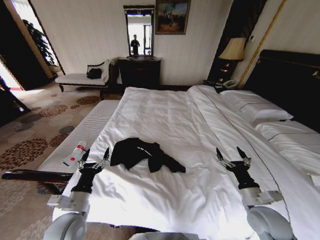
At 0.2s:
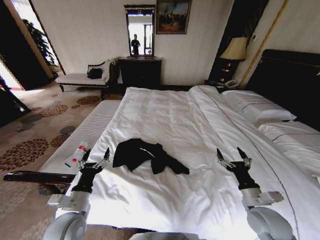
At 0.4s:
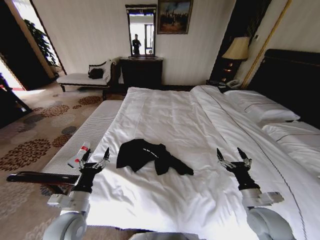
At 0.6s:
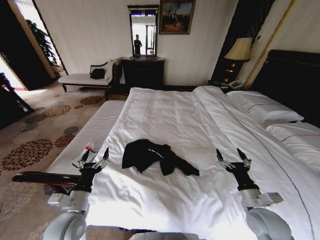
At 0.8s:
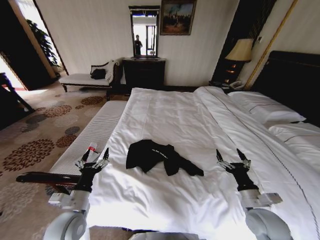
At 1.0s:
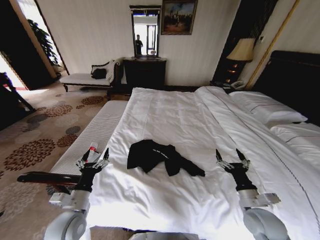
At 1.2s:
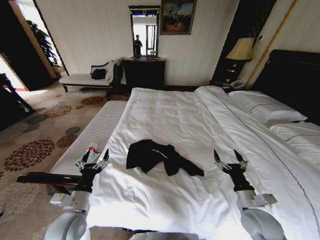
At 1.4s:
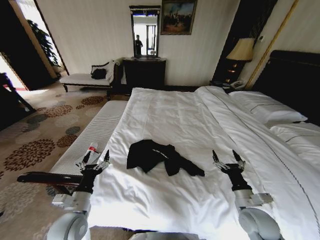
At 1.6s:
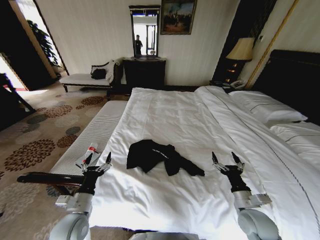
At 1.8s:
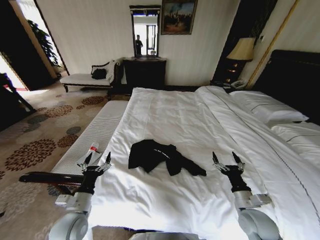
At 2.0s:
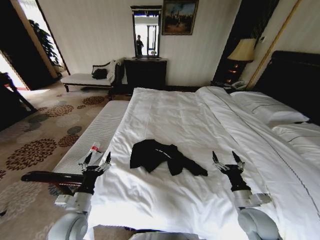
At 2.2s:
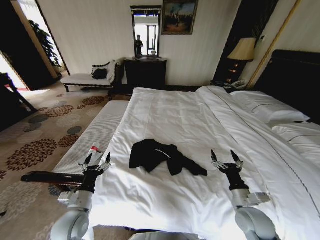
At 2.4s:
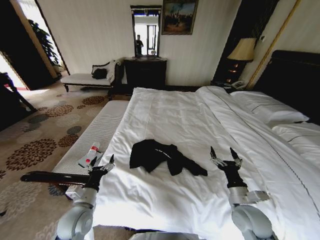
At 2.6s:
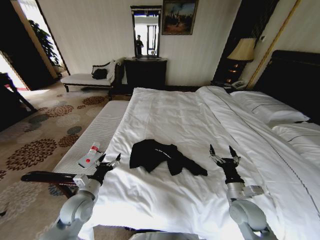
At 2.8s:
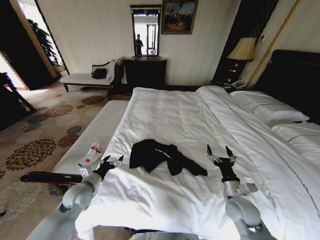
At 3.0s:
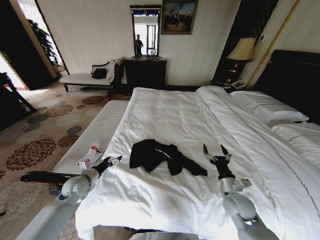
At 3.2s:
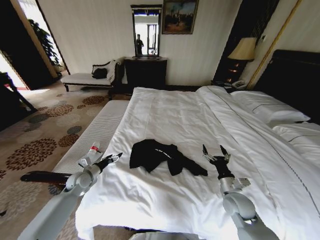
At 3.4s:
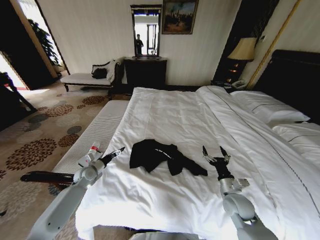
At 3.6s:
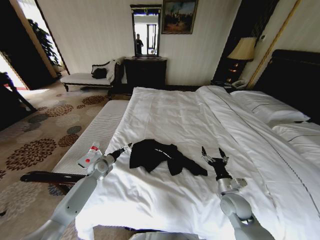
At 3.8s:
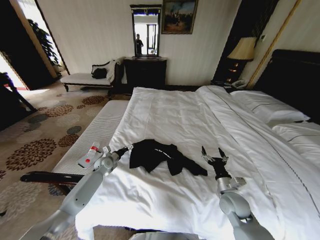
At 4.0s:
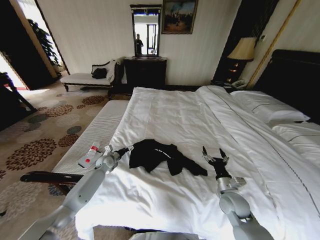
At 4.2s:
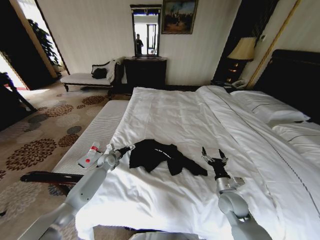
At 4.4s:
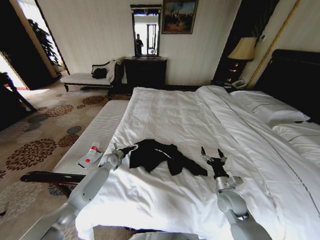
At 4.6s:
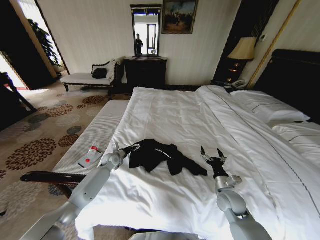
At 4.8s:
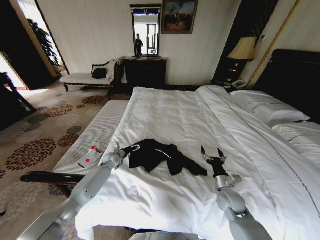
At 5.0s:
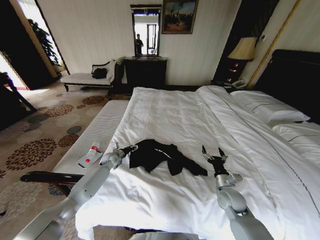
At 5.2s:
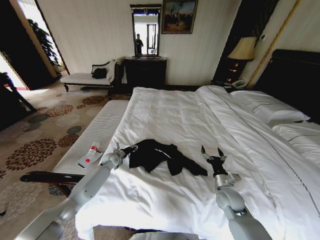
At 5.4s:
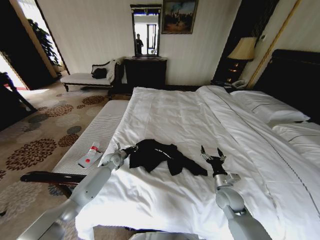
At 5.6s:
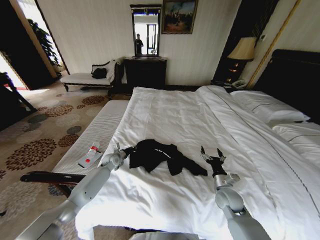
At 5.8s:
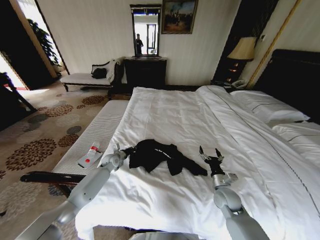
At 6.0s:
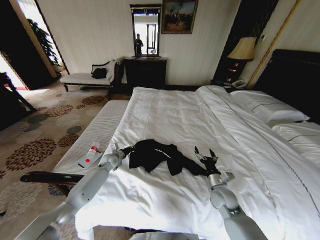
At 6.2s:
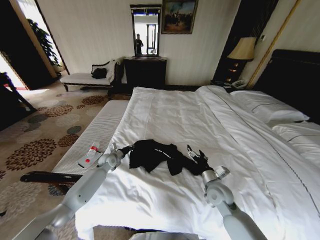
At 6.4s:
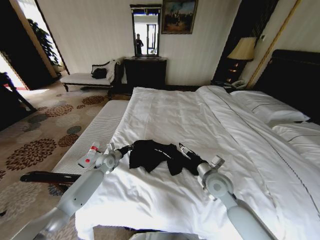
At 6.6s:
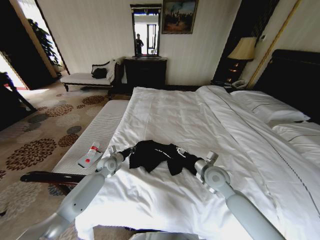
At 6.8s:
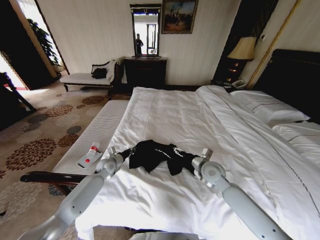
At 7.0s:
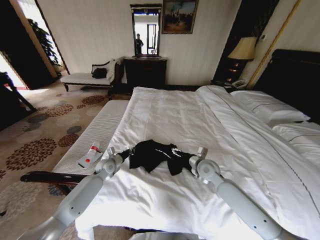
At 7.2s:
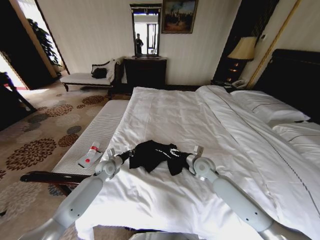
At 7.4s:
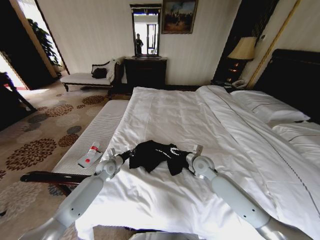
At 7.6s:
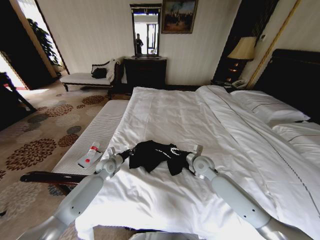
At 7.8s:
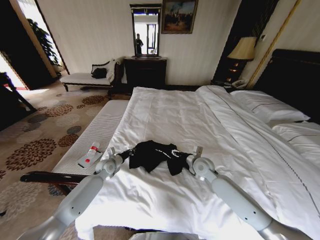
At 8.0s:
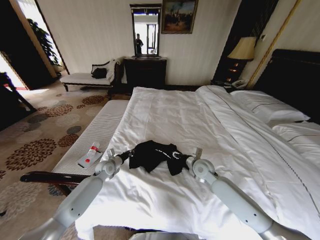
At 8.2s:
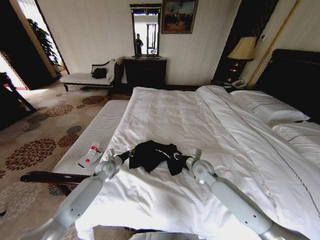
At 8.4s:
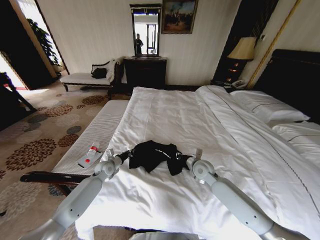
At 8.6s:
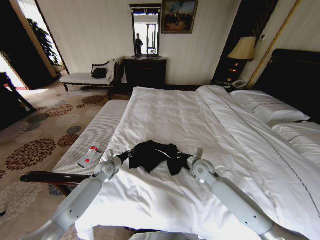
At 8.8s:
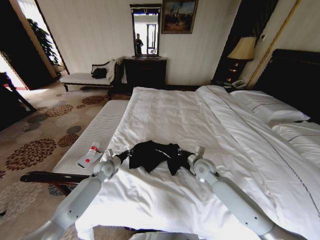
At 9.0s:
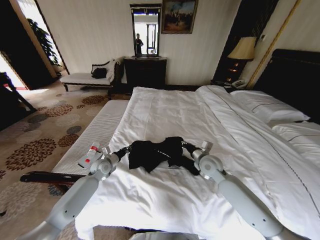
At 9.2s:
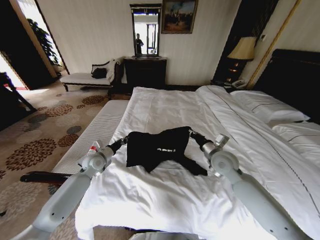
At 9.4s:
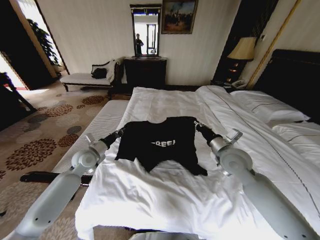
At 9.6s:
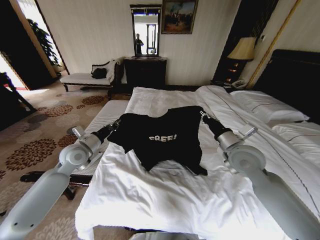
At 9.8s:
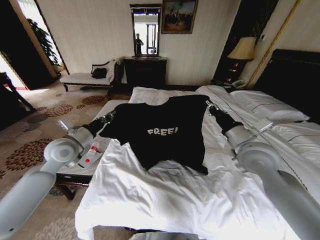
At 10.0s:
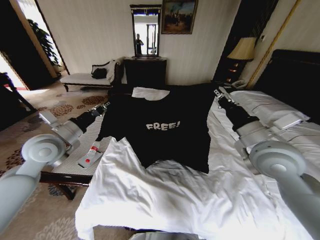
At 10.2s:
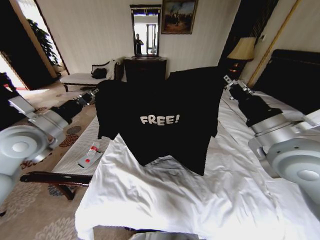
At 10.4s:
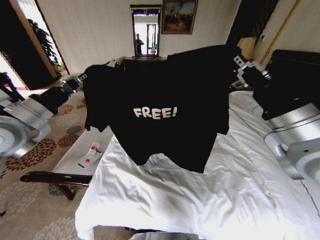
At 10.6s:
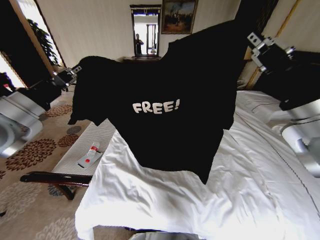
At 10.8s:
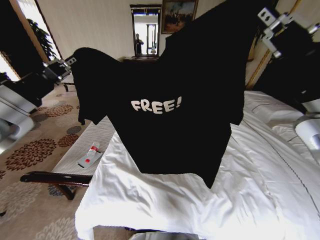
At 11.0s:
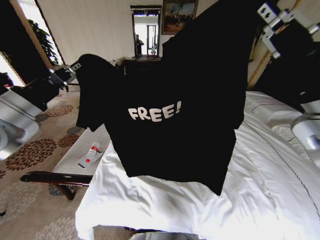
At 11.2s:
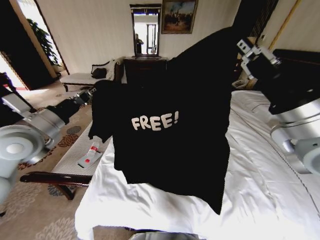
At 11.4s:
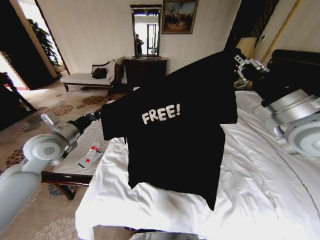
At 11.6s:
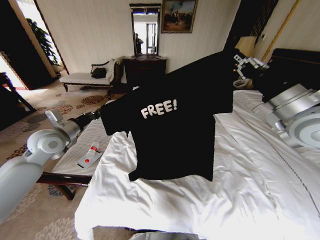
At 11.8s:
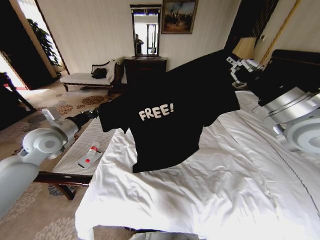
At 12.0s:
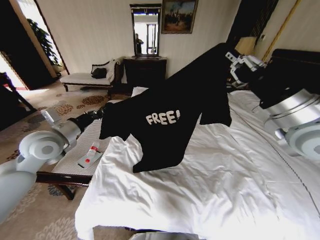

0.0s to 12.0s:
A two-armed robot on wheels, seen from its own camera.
Task of the whole recording: Fold the clothes on the bed.
1.6s to 3.0s: The right gripper goes roughly 5 cm forward. The left gripper travels forward and to the left by some 15 cm.
3.0s to 4.4s: The left gripper heads forward and to the right, covering approximately 20 cm.
4.4s to 6.0s: The left gripper closes.
6.0s to 7.6s: The right gripper is displaced forward, upward and to the left by about 15 cm.
7.6s to 9.0s: The right gripper closes up.
9.0s to 10.4s: The right gripper goes some 30 cm upward and backward. The left gripper moves upward, roughly 35 cm.
10.4s to 12.0s: The right gripper travels forward by roughly 5 cm. The left gripper shifts approximately 10 cm downward and forward.

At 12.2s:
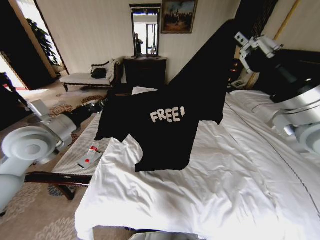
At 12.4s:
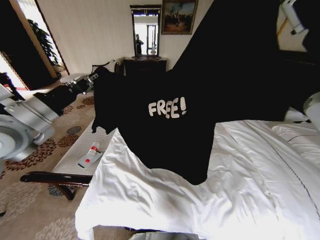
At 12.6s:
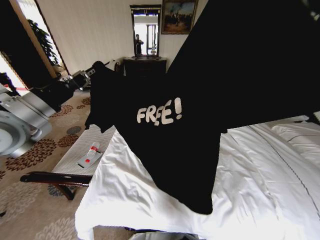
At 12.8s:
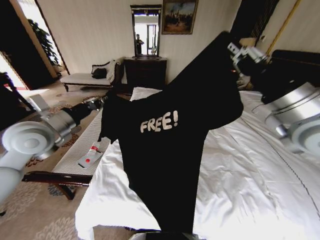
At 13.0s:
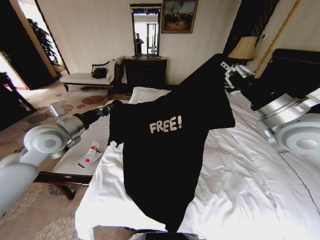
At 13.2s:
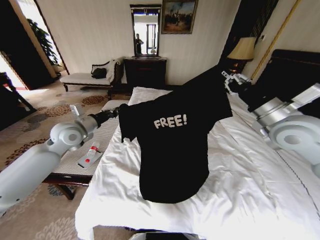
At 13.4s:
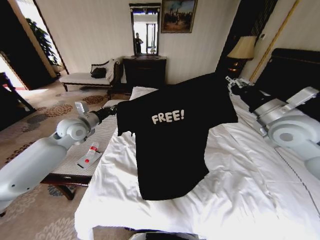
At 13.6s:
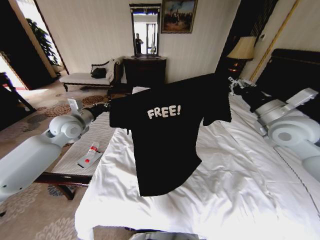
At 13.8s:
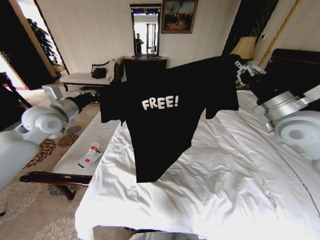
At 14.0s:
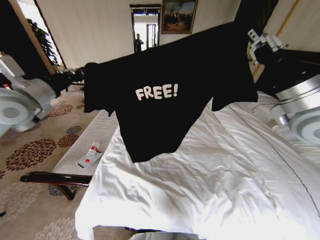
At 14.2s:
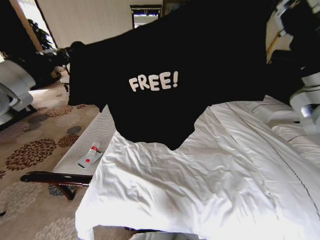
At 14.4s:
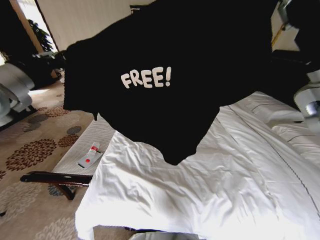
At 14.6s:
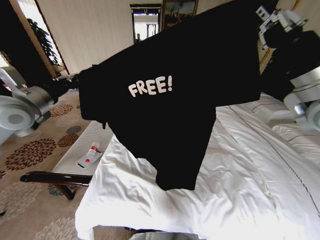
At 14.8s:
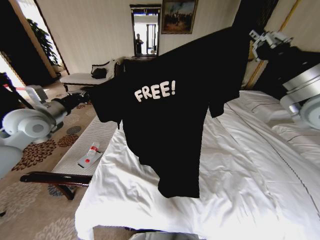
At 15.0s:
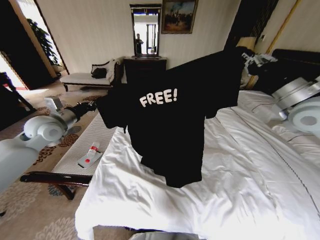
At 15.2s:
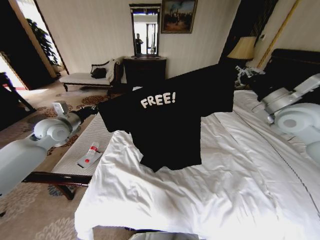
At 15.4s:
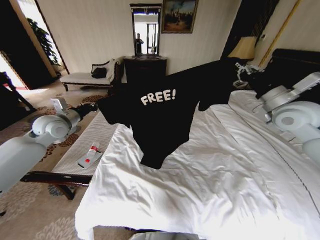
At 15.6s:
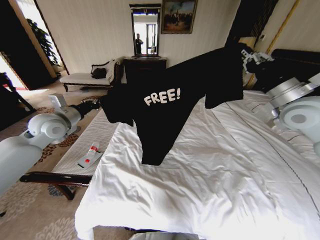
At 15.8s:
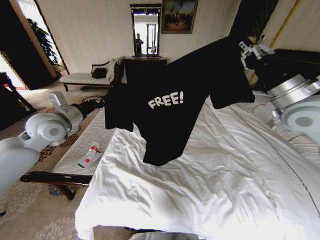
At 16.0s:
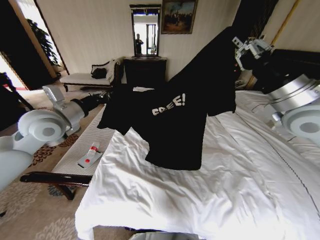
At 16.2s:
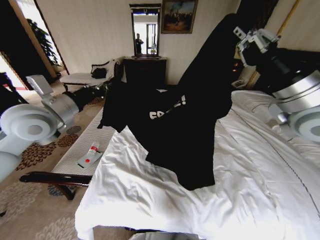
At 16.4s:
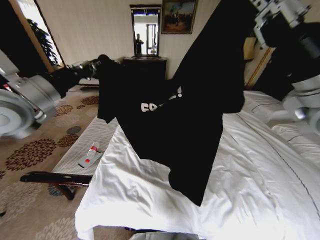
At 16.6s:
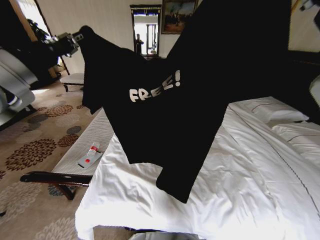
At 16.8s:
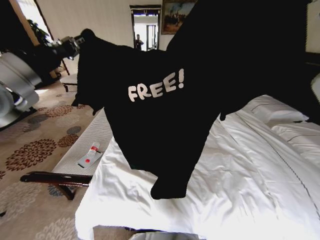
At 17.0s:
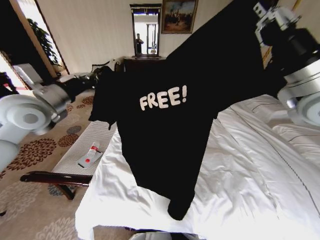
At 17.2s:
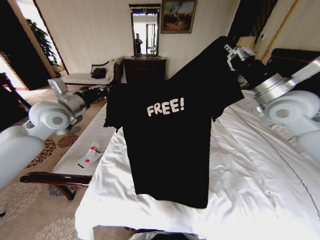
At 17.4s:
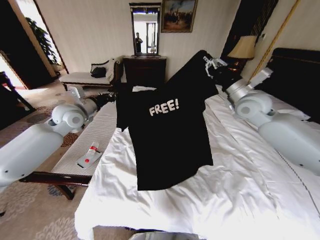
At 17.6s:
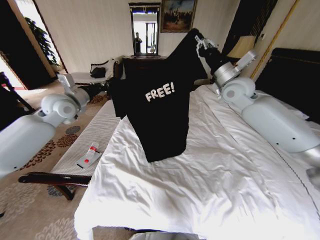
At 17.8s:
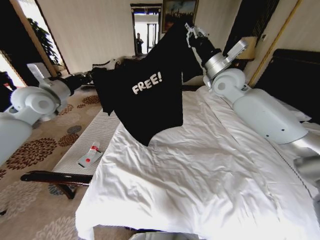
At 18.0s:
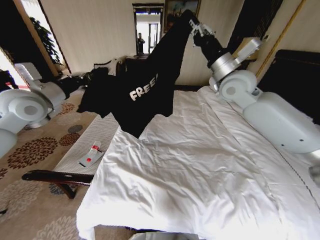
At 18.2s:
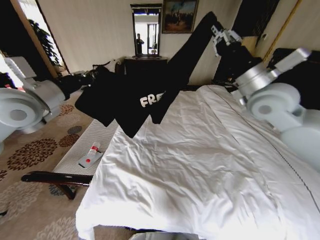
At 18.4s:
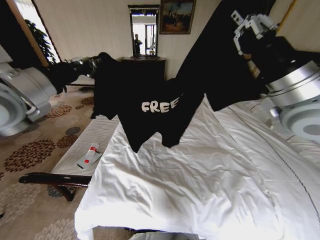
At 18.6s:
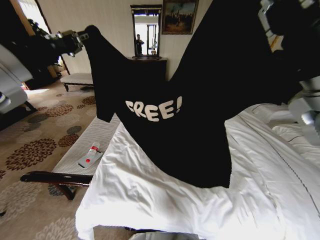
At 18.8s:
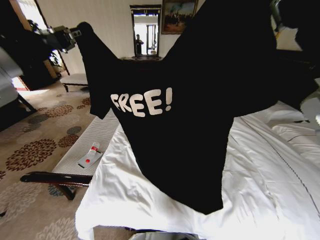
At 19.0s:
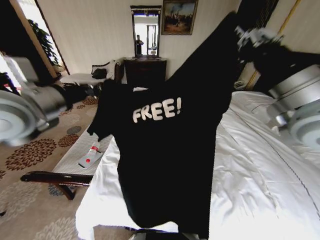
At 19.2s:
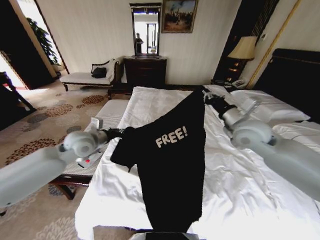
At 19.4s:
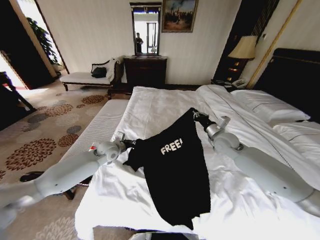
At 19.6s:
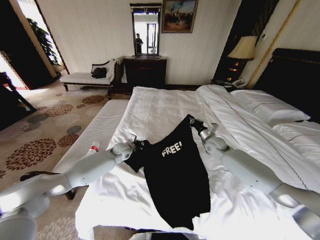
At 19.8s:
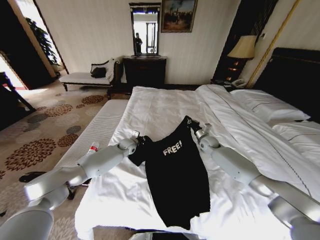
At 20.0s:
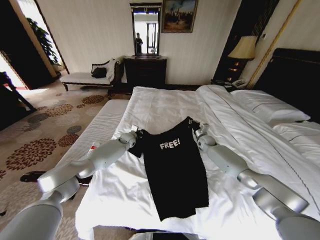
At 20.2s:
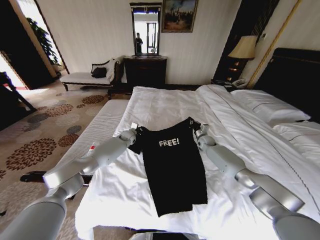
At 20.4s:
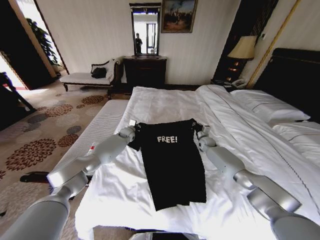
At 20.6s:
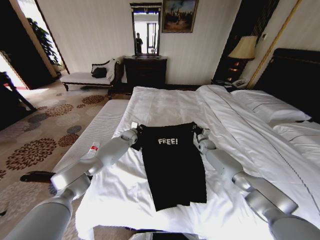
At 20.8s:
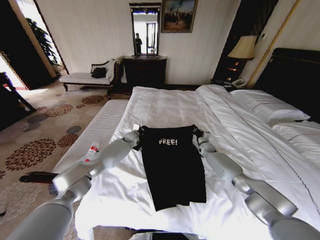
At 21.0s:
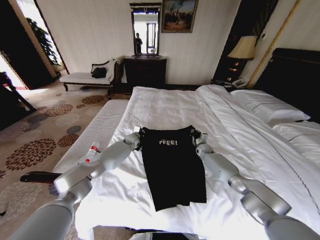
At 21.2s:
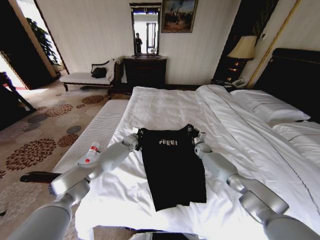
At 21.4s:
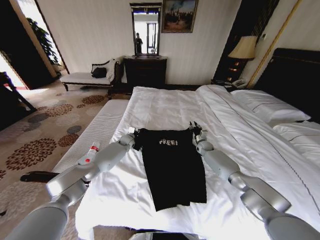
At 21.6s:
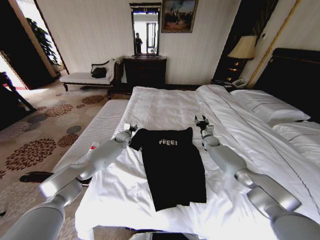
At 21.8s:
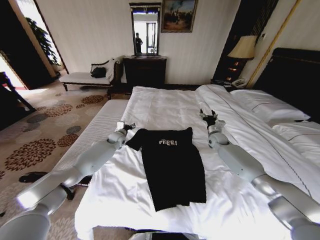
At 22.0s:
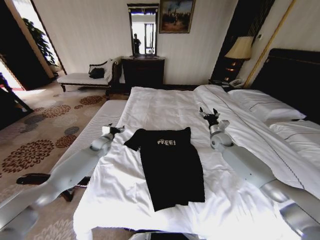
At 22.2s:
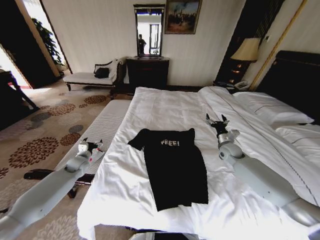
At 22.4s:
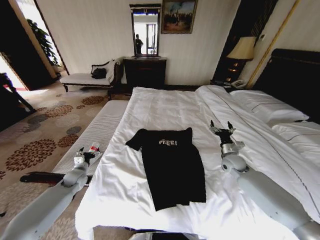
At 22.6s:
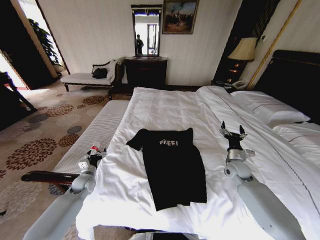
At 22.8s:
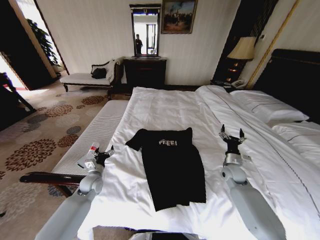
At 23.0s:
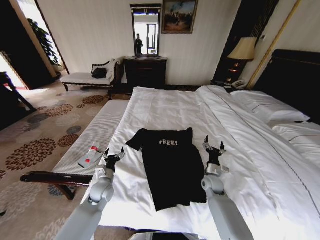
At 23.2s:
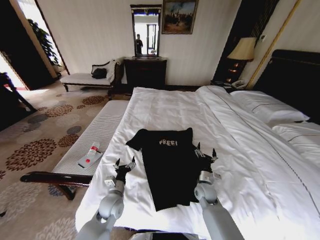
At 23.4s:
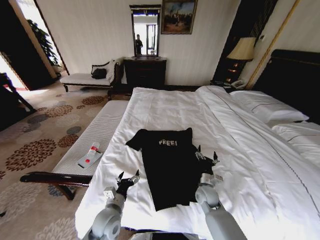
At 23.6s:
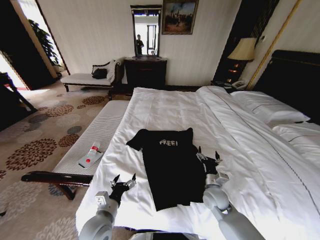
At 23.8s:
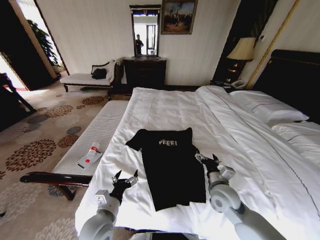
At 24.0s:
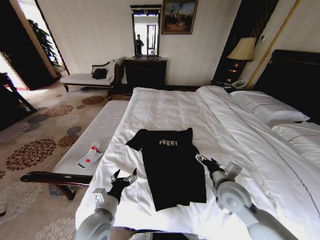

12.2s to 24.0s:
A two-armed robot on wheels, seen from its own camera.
Task of the whole recording: Fold the clothes on the bed.
12.2s to 13.6s: The right gripper goes about 15 cm forward, downward and to the right, while the left gripper heads forward, covering roughly 10 cm.
13.6s to 15.2s: The right gripper travels upward and back again, about 10 cm each way; the left gripper shifts approximately 5 cm to the left, and goes upward and returns, some 15 cm each way.
15.2s to 16.6s: The right gripper moves backward, upward and to the left, some 20 cm; the left gripper shifts about 25 cm upward and backward.
16.6s to 18.2s: The left gripper heads downward, covering roughly 5 cm, and reaches approximately 15 cm forward, then returns, while the right gripper heads forward and downward, covering roughly 15 cm.
18.2s to 19.6s: The right gripper goes roughly 30 cm downward. Meanwhile the left gripper moves downward and to the right, about 35 cm.
19.6s to 21.0s: The left gripper heads forward, covering roughly 10 cm. The right gripper goes some 15 cm downward and forward.
21.0s to 22.6s: The right gripper is displaced backward and upward by approximately 20 cm, and opens. Meanwhile the left gripper travels backward and to the left by about 35 cm, and opens up.
22.6s to 24.0s: The left gripper heads backward, to the right and upward, covering approximately 25 cm. The right gripper heads backward, to the left and upward, covering approximately 20 cm.
